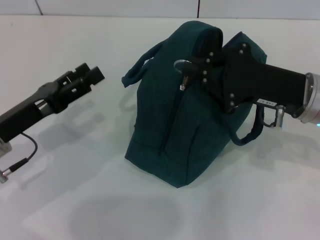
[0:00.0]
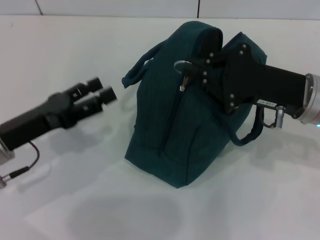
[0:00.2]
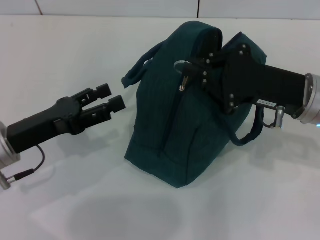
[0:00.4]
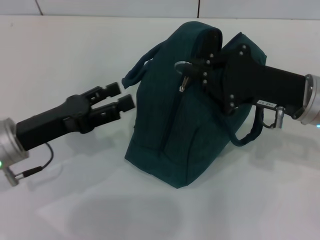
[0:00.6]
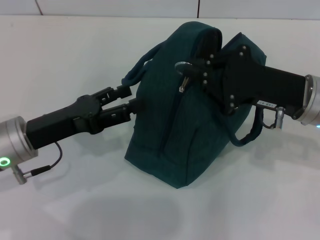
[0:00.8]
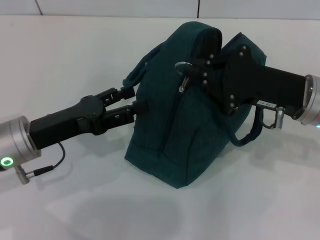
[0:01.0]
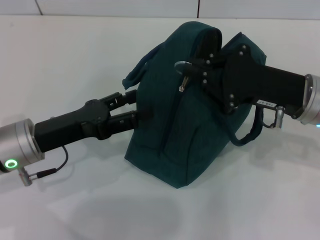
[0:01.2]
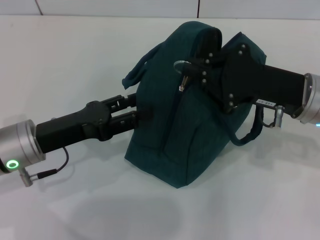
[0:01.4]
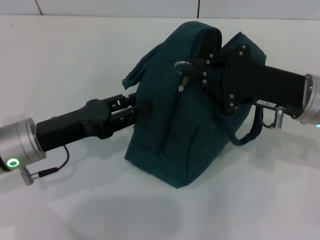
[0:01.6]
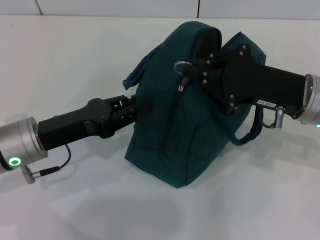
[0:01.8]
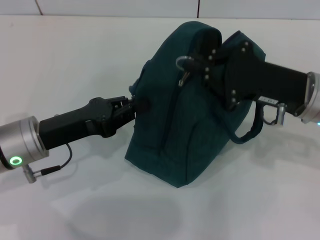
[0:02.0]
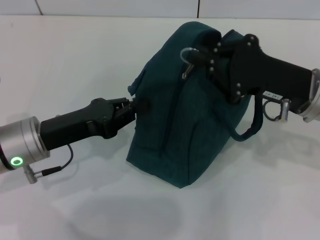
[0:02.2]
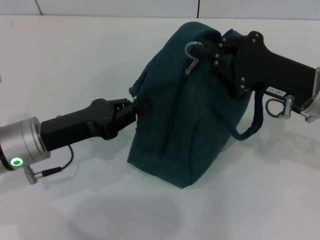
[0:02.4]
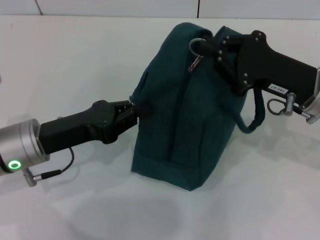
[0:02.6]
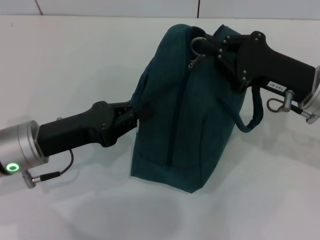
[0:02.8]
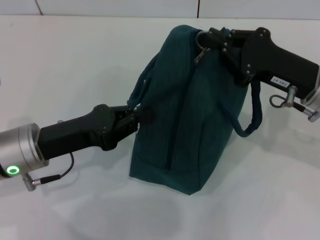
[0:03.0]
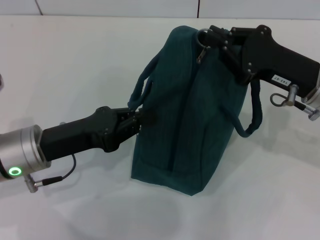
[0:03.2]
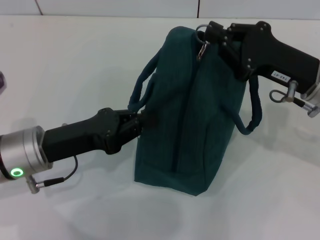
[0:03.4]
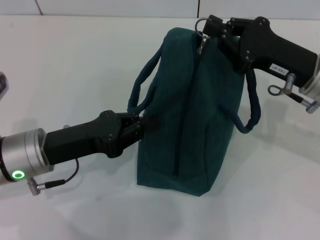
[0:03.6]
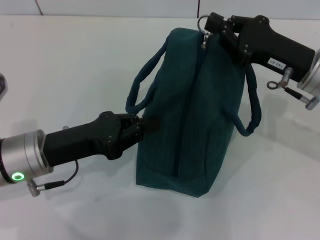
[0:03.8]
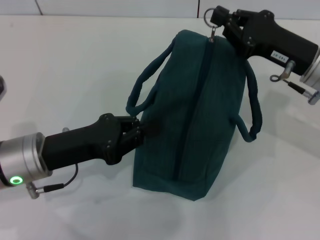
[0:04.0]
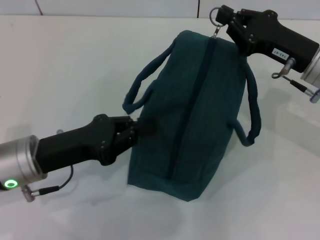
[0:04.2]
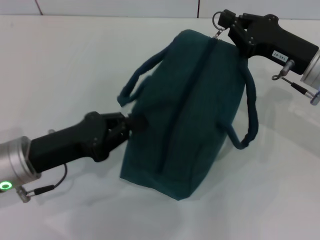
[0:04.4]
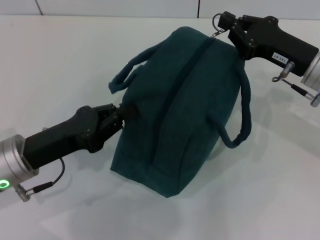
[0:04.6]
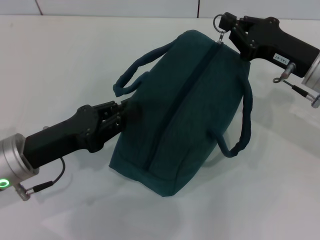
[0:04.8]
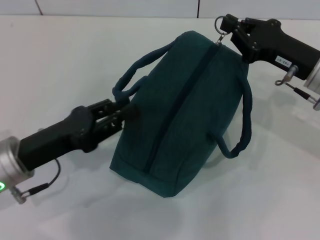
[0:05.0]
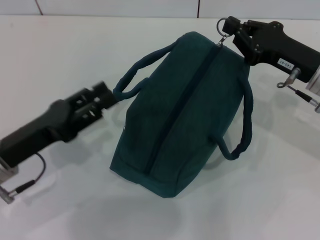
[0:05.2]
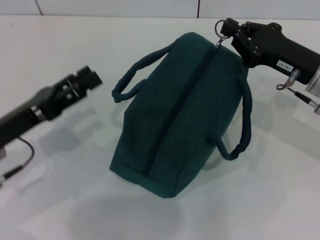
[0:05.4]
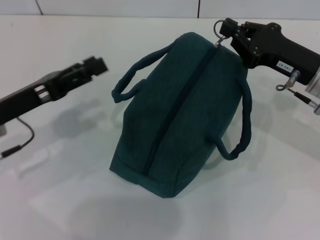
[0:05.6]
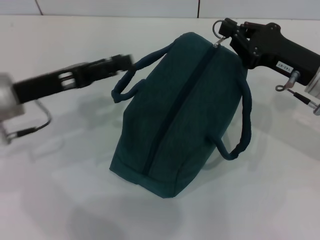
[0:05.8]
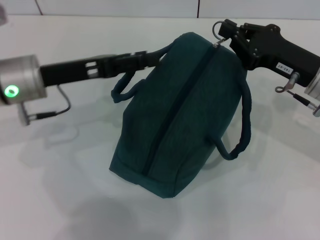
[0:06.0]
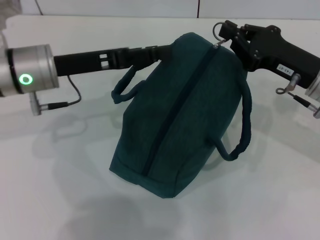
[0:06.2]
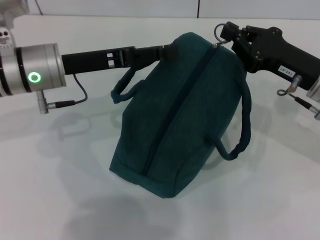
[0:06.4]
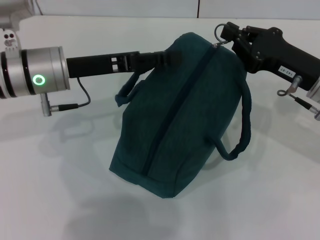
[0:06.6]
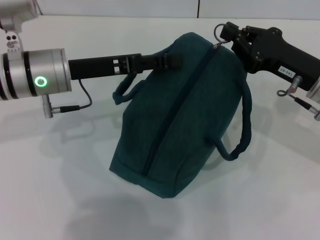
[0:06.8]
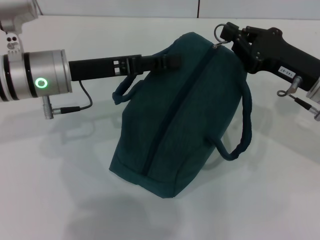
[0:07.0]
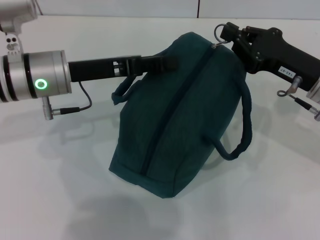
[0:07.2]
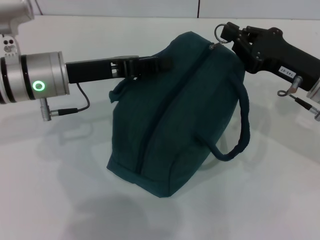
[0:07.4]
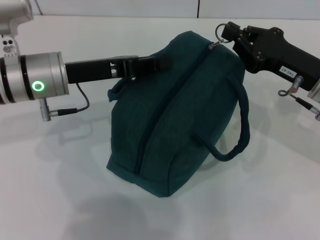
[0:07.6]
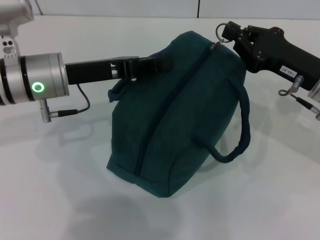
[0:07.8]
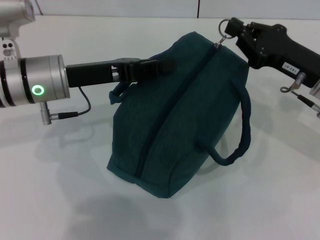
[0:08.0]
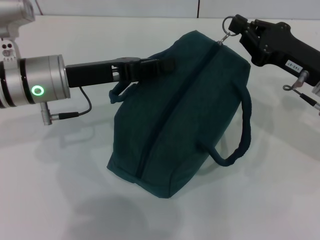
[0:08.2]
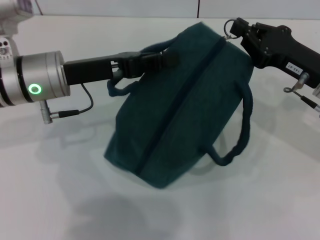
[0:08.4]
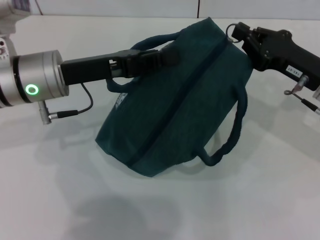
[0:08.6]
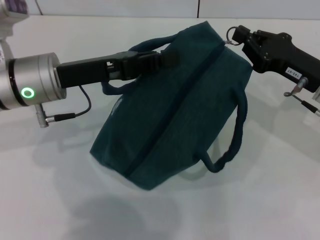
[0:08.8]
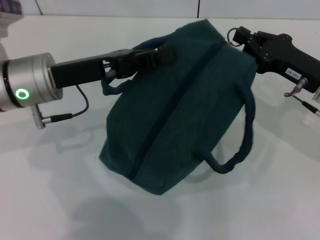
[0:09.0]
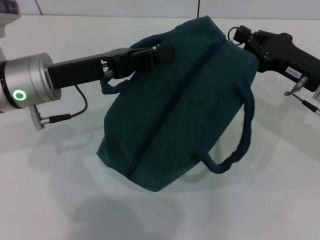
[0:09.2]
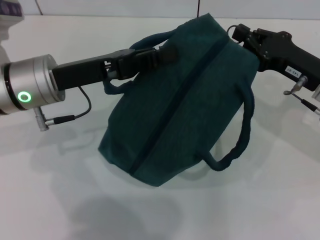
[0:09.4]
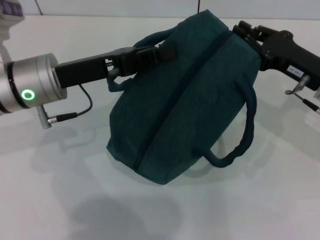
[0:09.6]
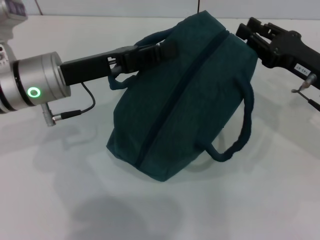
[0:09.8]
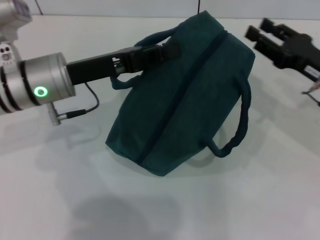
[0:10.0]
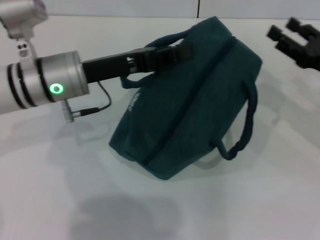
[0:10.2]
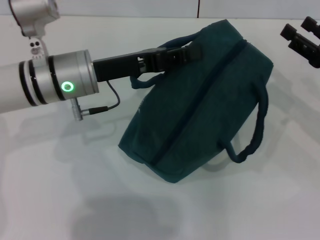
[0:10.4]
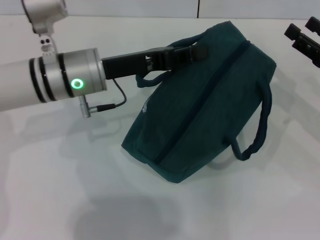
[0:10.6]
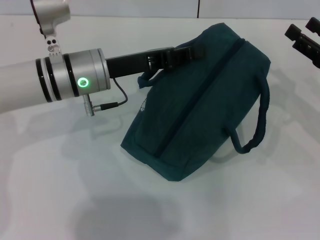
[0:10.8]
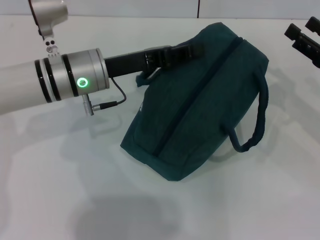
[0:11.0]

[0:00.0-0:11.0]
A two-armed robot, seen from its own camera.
Step, 0:00.0 to 0:09.8: Zip up the lunch bag with your right hand.
0:00.0 to 0:01.6: The grippers make only small movements.
0:01.6 to 0:03.2: The left gripper closes.
0:03.2 to 0:04.8: The grippers move only a little.
0:04.8 to 0:06.2: The left gripper is displaced forward and upward by some 15 cm, and opens up.
0:06.2 to 0:07.8: The left gripper closes up.
0:07.8 to 0:09.4: The grippers move only a little.
0:09.4 to 0:11.0: The right gripper shifts about 5 cm to the right, and opens up; the left gripper changes place by about 5 cm.

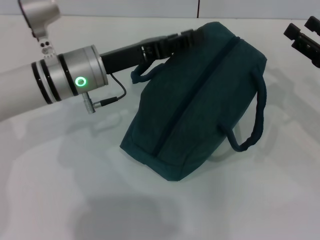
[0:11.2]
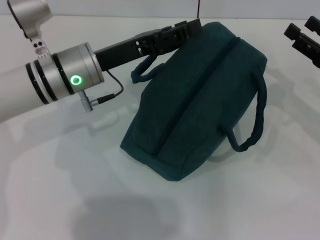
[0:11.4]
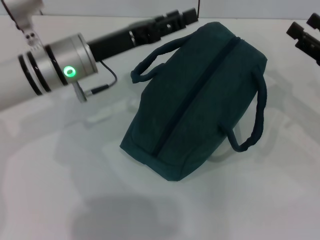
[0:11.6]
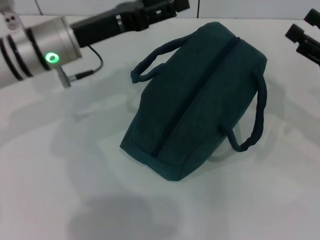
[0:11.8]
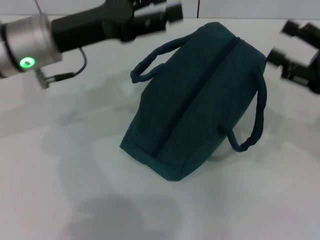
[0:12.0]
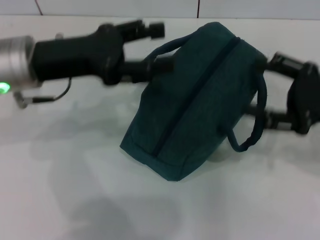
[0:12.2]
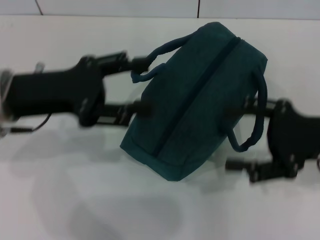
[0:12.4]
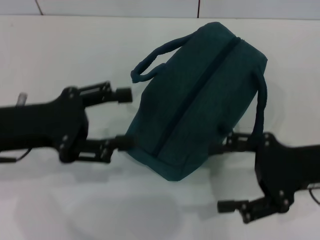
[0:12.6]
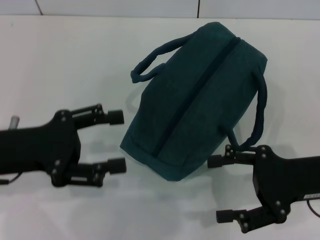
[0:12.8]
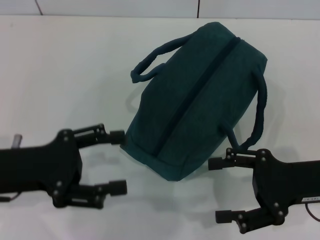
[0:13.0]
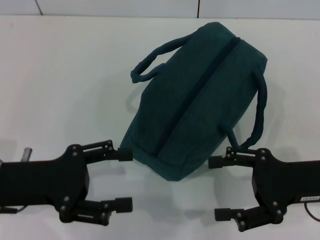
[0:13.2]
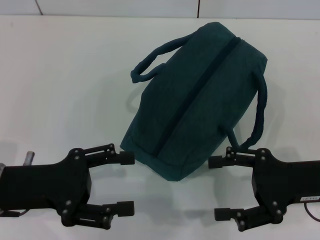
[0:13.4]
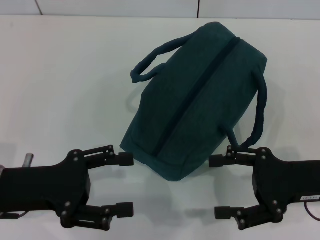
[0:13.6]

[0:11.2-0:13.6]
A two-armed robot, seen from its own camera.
0:11.2 to 0:12.4: The grippers both shift to the left and backward by roughly 10 cm. The left gripper opens.
0:12.4 to 0:13.6: The left gripper goes roughly 10 cm backward and downward.
